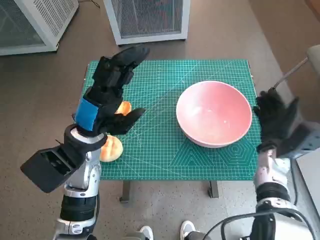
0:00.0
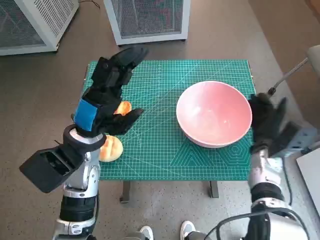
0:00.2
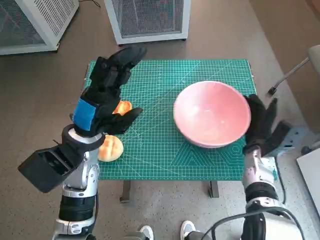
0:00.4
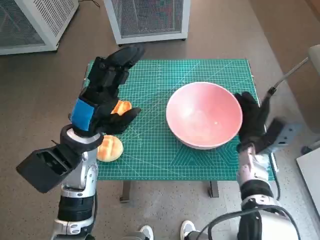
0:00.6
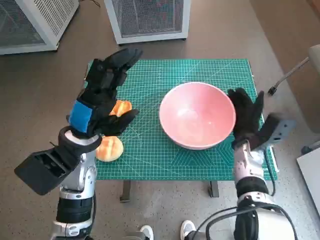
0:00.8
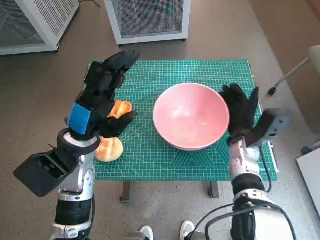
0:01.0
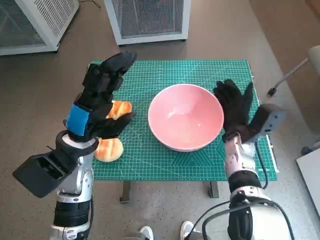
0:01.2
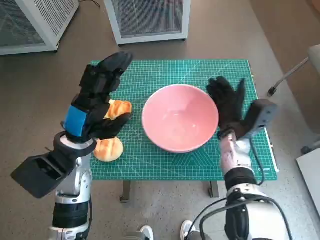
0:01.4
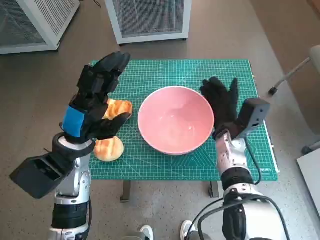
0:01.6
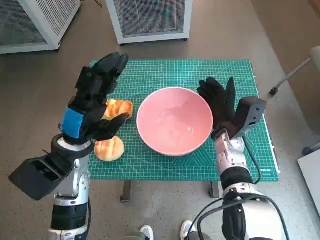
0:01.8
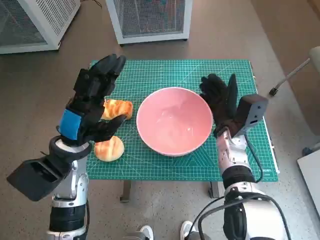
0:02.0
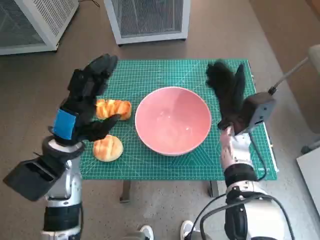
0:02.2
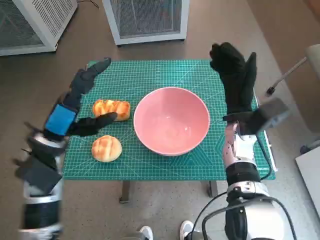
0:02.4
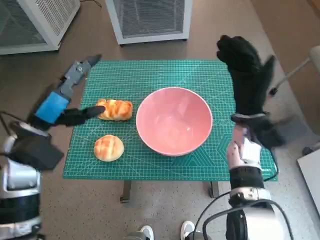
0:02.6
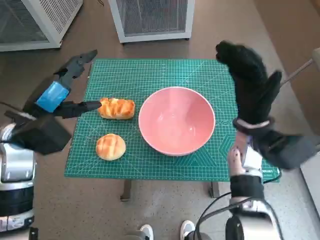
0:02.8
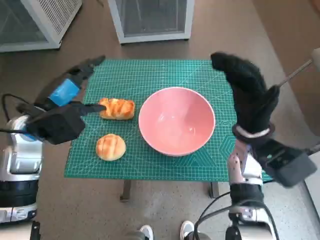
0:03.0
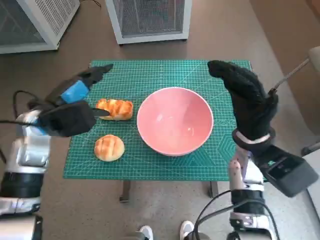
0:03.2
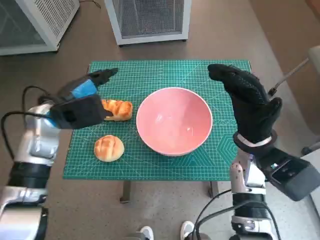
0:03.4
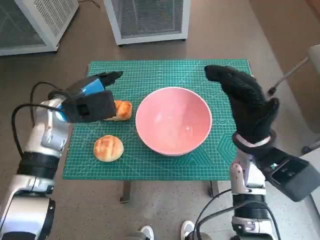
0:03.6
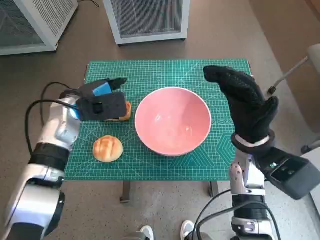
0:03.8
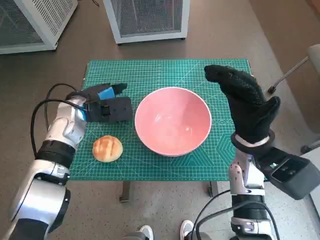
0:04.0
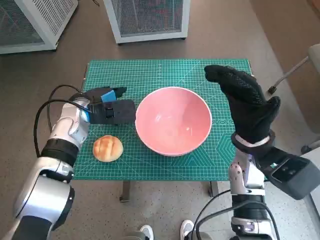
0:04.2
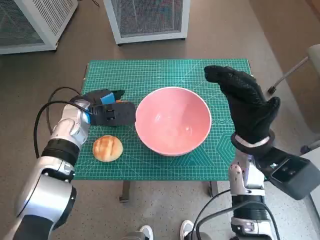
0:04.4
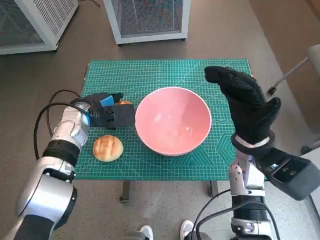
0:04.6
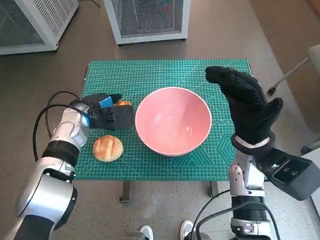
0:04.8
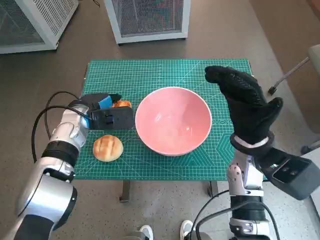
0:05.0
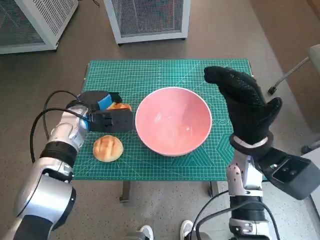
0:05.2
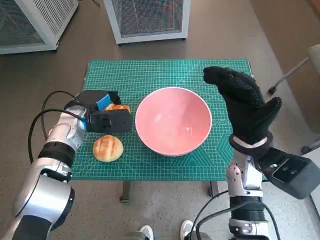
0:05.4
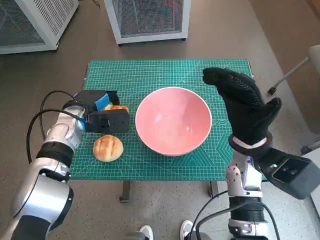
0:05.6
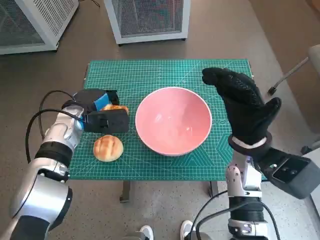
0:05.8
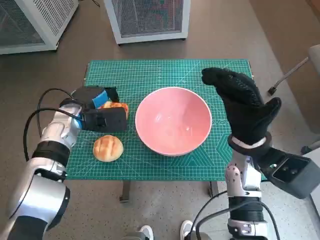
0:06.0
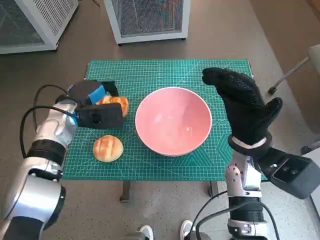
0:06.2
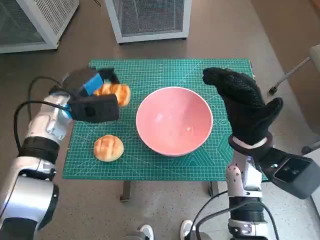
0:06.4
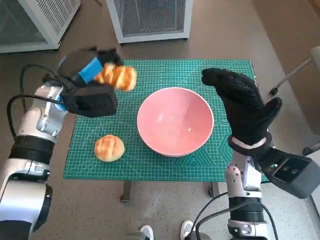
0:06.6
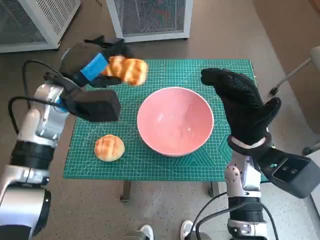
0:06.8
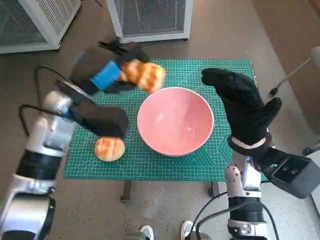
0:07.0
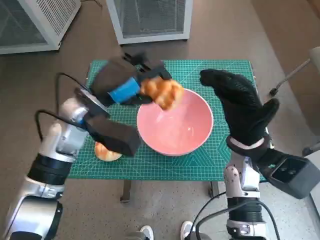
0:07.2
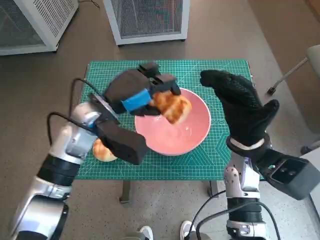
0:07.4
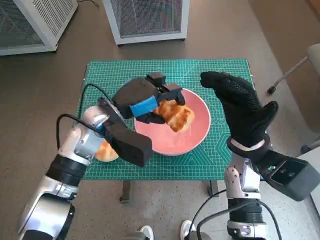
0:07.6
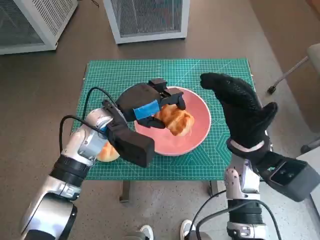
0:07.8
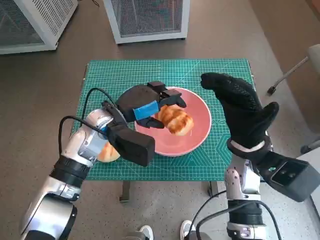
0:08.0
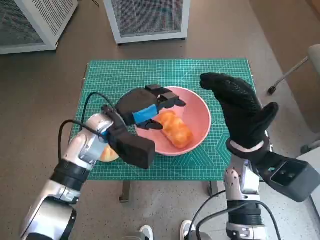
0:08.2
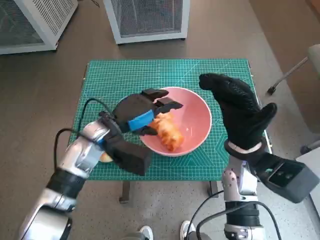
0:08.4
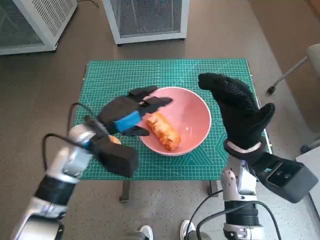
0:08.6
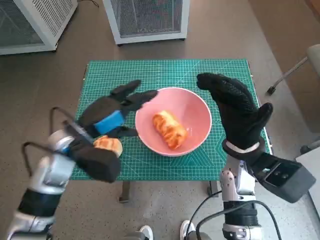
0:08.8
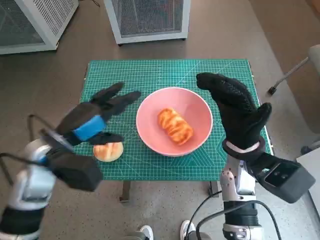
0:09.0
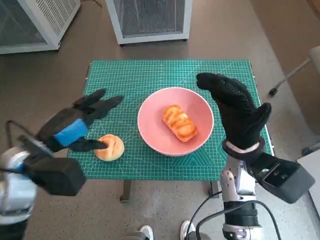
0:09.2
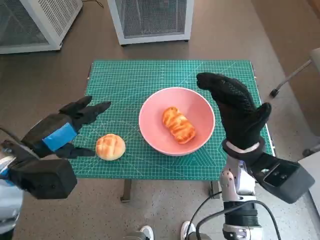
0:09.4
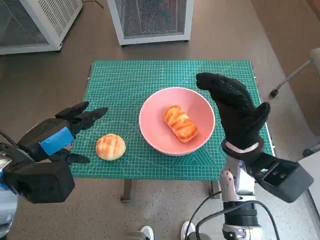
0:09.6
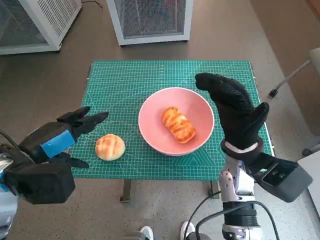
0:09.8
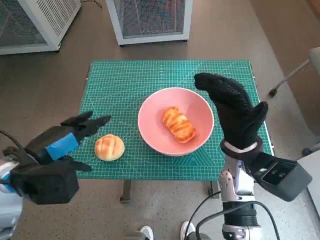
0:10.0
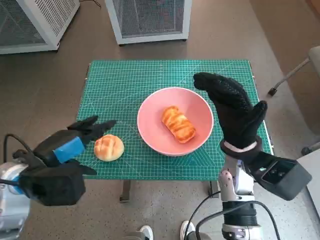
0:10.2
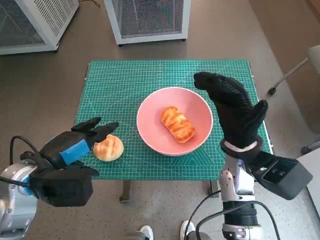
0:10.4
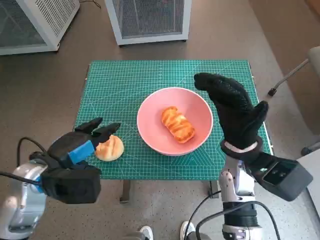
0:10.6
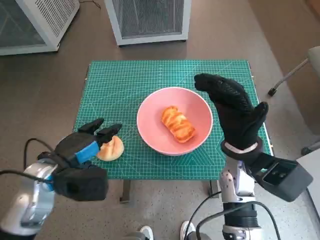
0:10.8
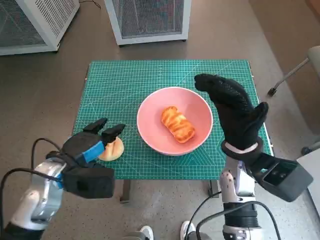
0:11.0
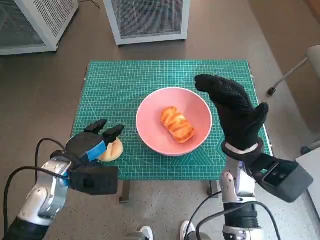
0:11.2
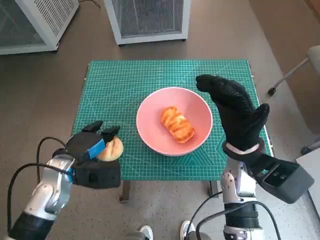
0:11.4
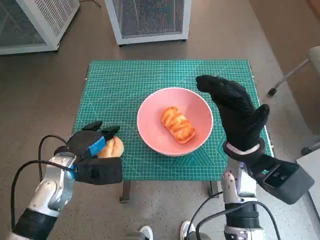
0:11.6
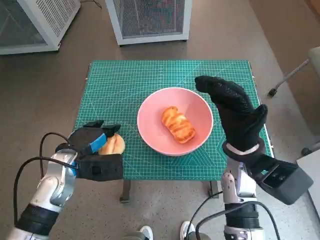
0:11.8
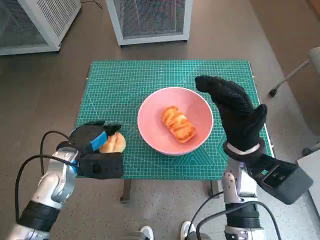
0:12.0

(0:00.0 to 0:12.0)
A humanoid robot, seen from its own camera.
Task of the whole recording: Push the bowl into the center of the table and put the bread into the bowl.
Step, 0:00.0 - 0:02.0: Move the pink bowl to the center of table with right hand.
Step, 0:02.2 - 0:05.2: Grasp the long bread with left hand.
Step, 0:05.4 - 0:08.0: Place the long bread in pink bowl with left hand.
Step, 0:08.2 - 0:12.0: Grasp the round bread with left hand.
0:00.0 - 0:01.6: The right hand is displaced to the left by some 10 cm.
0:01.6 - 0:03.0: The left hand travels to the left by approximately 5 cm; the right hand moves upward, about 5 cm.
0:03.0 - 0:04.4: The left hand shifts roughly 10 cm forward, downward and to the right.
0:04.4 - 0:06.0: The hands move only a little.
0:06.0 - 0:07.6: The left hand travels to the right by approximately 10 cm.
0:07.6 - 0:09.0: The left hand goes roughly 10 cm to the left and backward.
0:09.0 - 0:10.4: The left hand travels backward by about 5 cm.
0:10.4 - 0:12.0: The left hand moves downward and forward, approximately 10 cm.

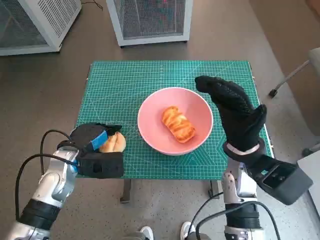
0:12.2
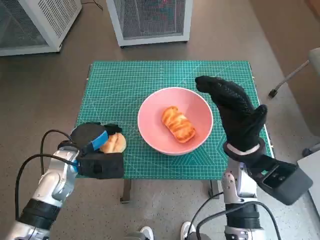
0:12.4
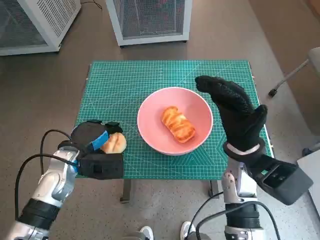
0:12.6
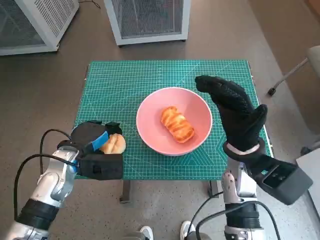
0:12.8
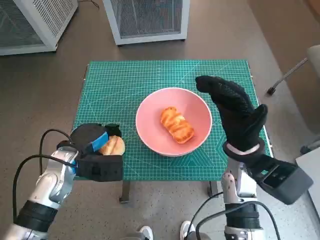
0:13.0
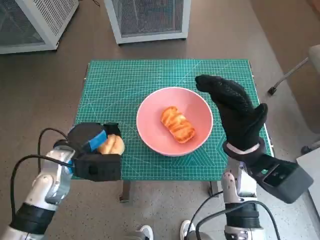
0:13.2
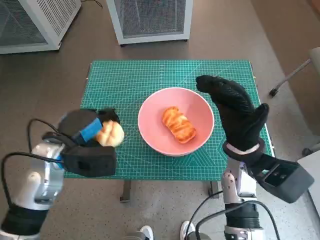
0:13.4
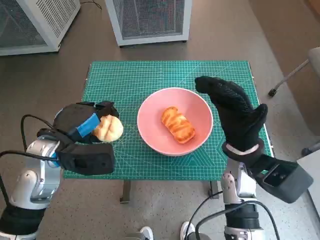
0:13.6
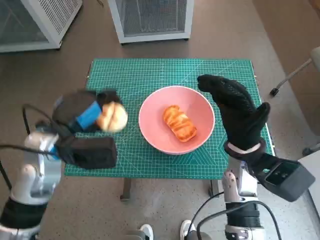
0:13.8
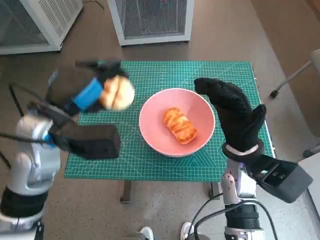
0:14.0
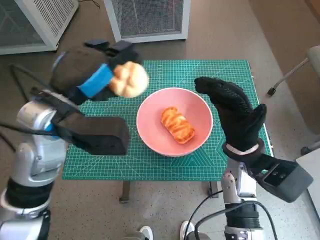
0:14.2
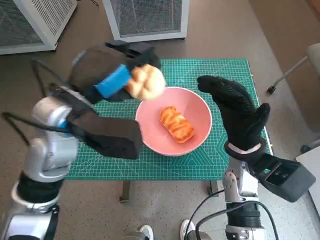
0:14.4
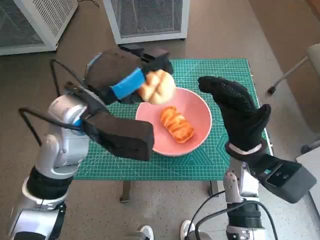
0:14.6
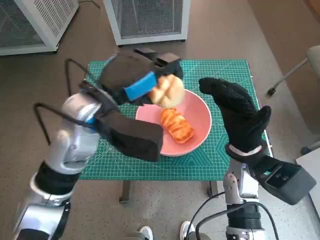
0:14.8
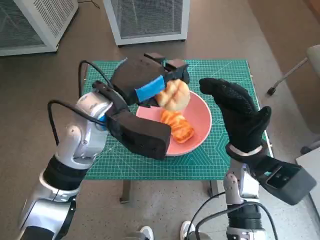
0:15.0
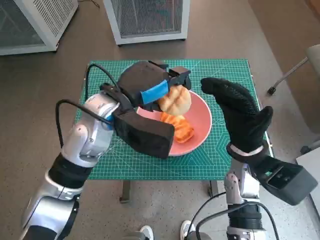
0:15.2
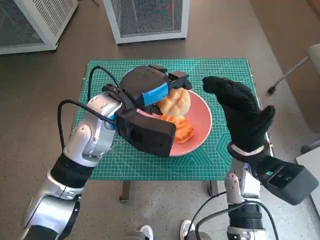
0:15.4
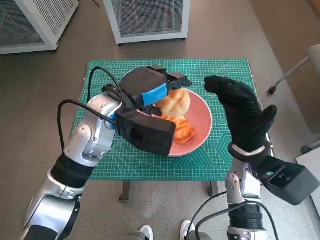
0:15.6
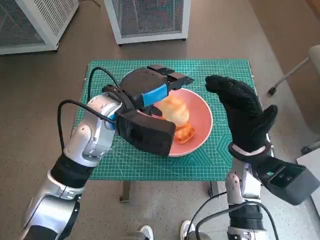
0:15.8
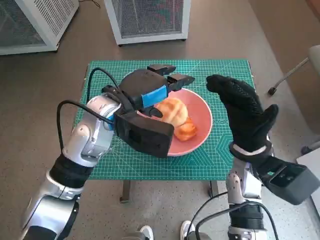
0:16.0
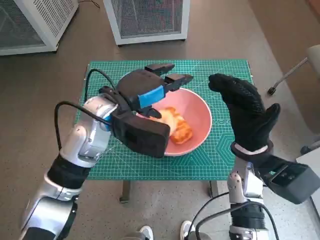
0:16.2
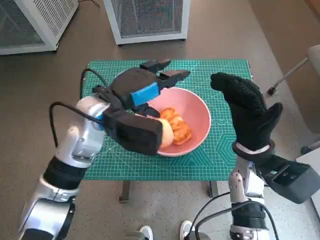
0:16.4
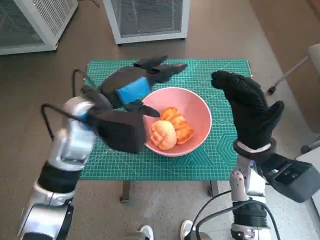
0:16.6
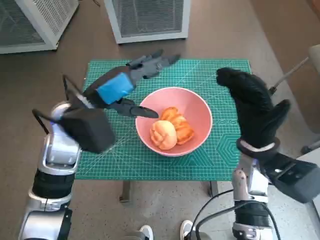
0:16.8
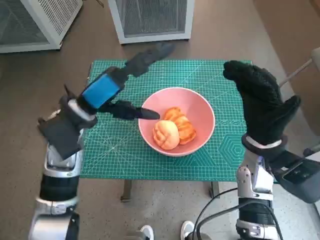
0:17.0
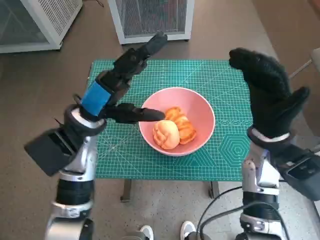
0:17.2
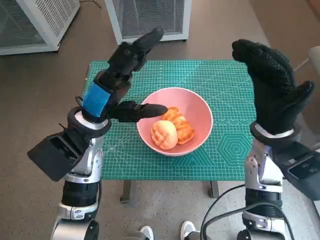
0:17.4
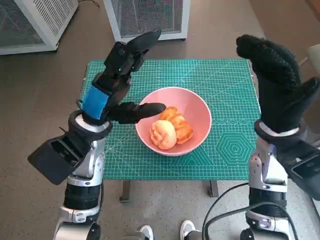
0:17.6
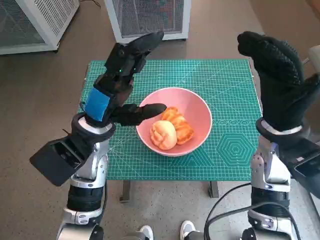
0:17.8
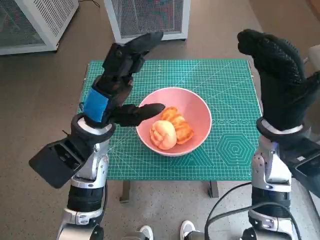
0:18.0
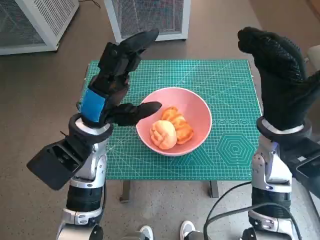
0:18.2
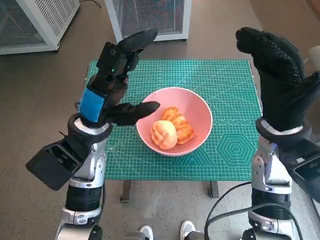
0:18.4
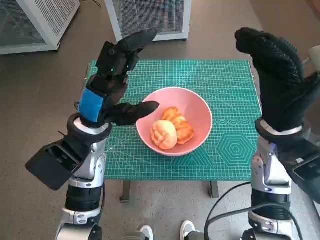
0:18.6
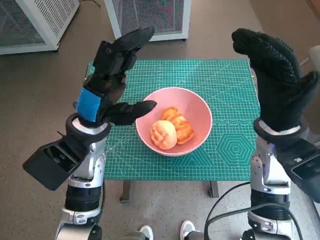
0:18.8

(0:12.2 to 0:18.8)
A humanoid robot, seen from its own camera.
Task of the whole recording: Push the bowl into the center of the table and put the bread into the bowl.
Step, 0:12.2 - 0:15.8: Place the round bread in pink bowl with left hand.
0:12.2 - 0:13.8: The left hand is displaced upward by approximately 10 cm.
0:13.8 - 0:15.4: The left hand heads to the right and forward, covering roughly 10 cm.
0:15.4 - 0:17.2: The left hand heads to the left, covering approximately 5 cm.
